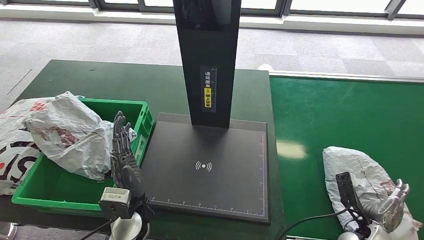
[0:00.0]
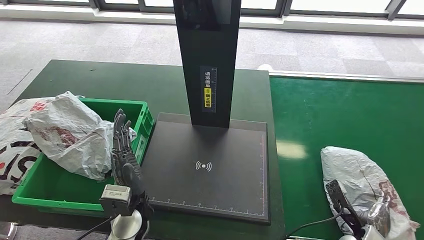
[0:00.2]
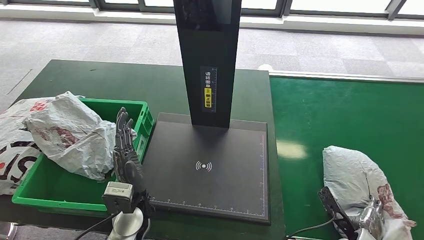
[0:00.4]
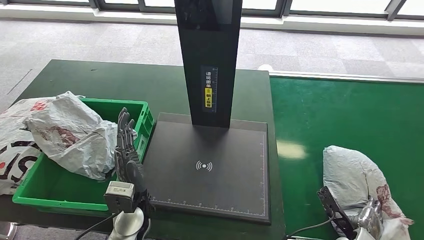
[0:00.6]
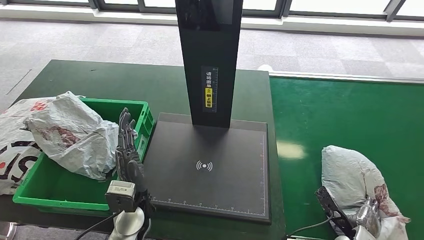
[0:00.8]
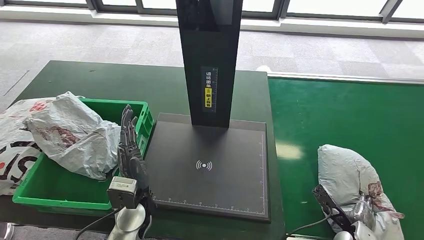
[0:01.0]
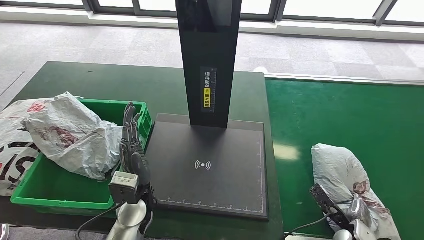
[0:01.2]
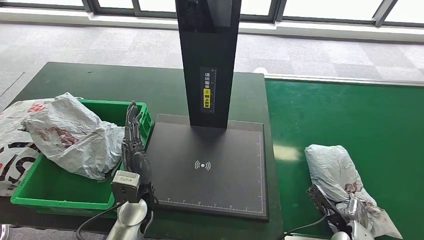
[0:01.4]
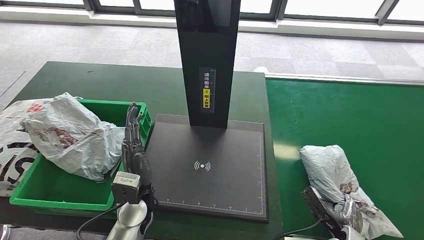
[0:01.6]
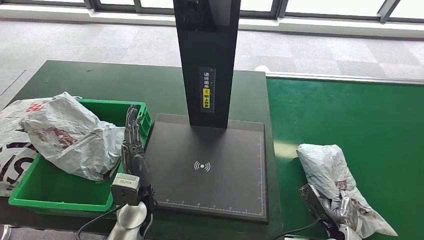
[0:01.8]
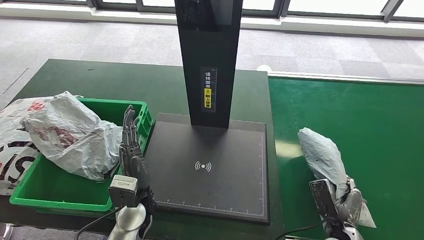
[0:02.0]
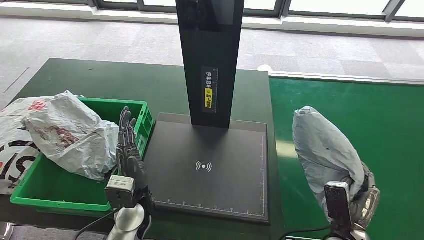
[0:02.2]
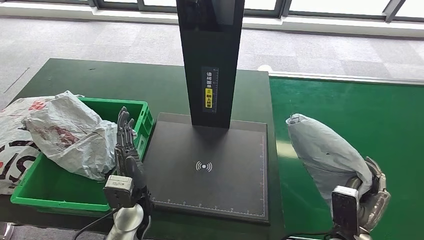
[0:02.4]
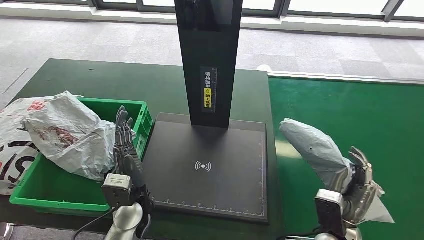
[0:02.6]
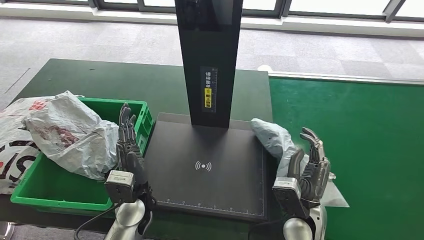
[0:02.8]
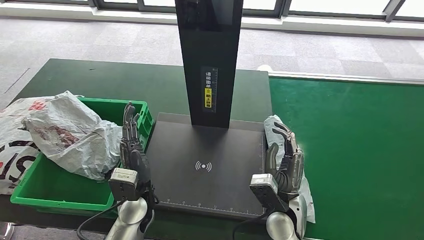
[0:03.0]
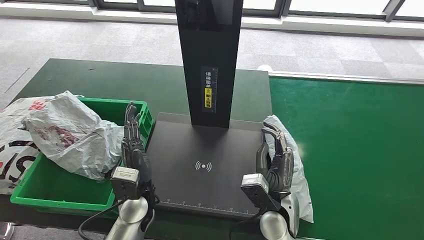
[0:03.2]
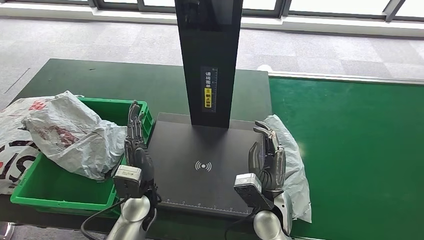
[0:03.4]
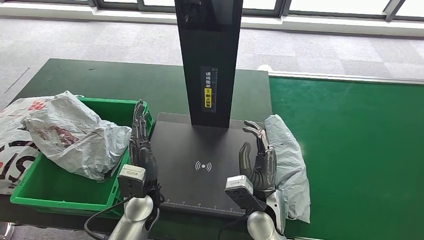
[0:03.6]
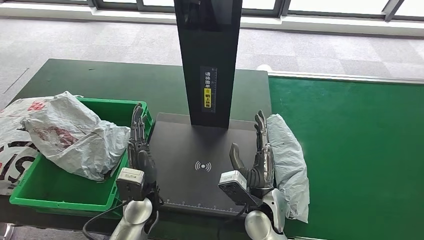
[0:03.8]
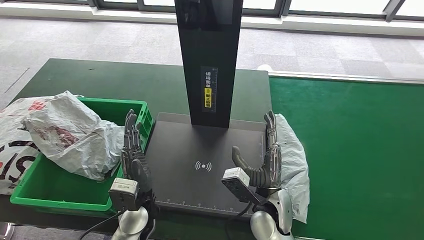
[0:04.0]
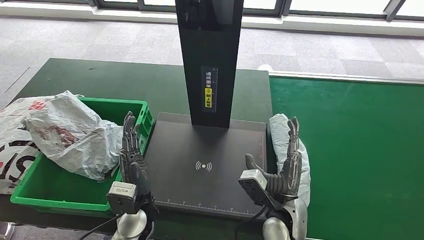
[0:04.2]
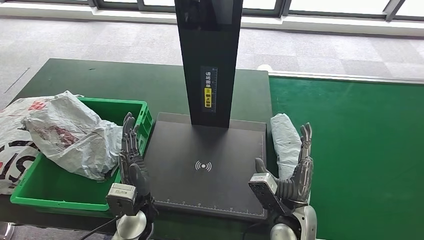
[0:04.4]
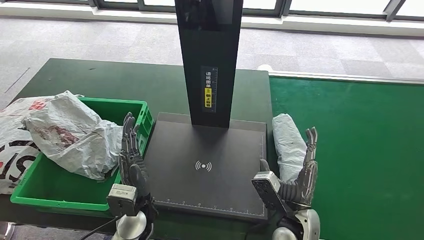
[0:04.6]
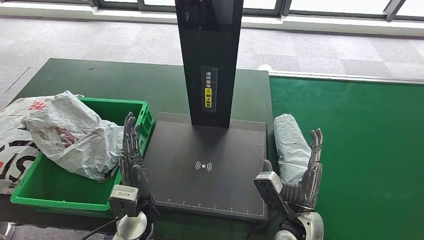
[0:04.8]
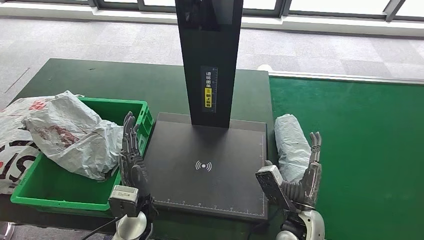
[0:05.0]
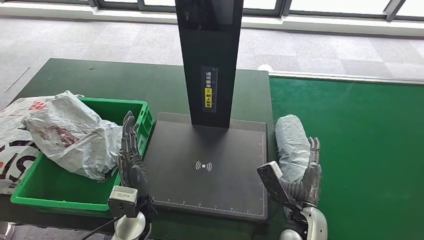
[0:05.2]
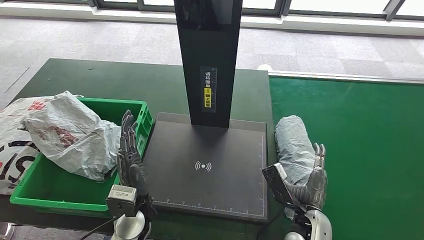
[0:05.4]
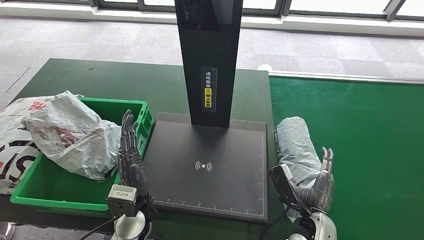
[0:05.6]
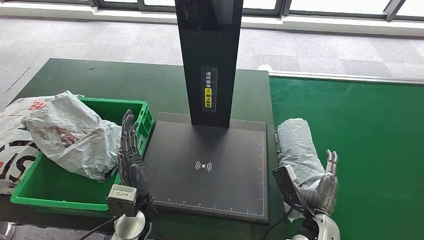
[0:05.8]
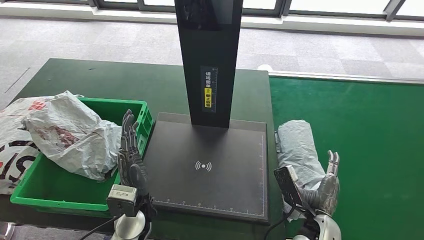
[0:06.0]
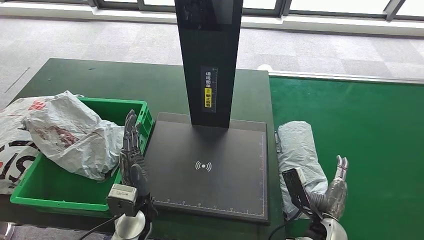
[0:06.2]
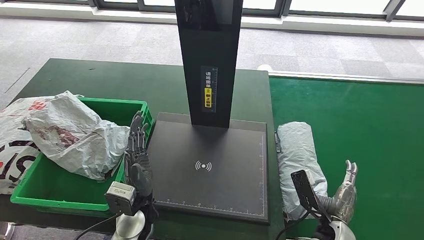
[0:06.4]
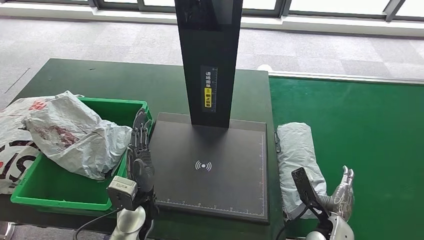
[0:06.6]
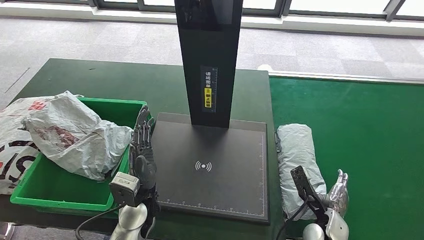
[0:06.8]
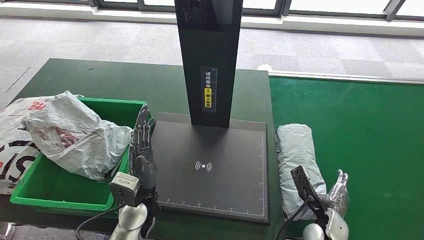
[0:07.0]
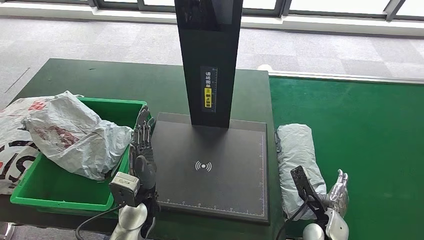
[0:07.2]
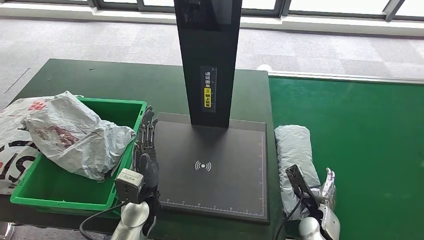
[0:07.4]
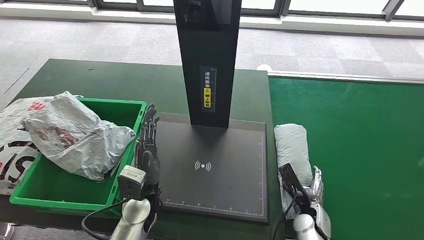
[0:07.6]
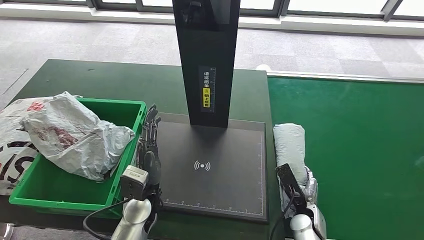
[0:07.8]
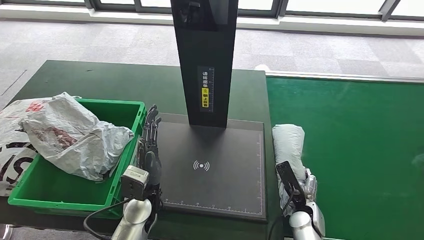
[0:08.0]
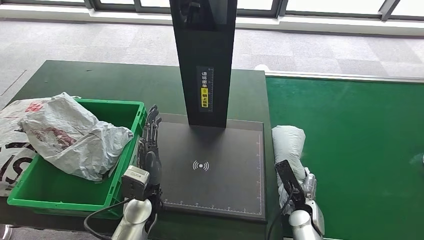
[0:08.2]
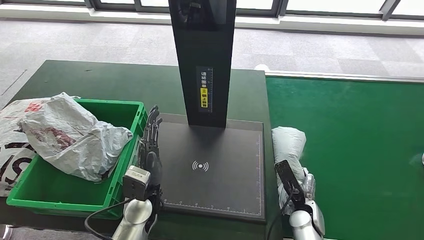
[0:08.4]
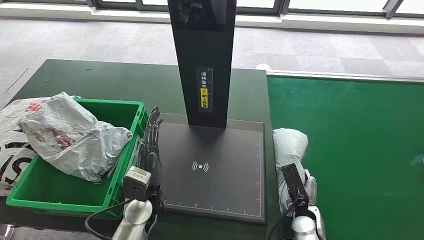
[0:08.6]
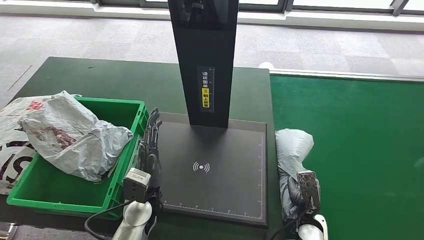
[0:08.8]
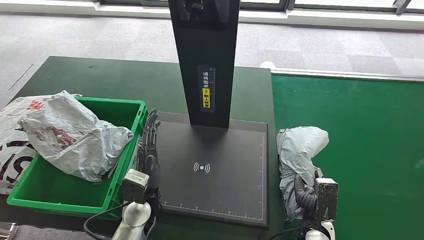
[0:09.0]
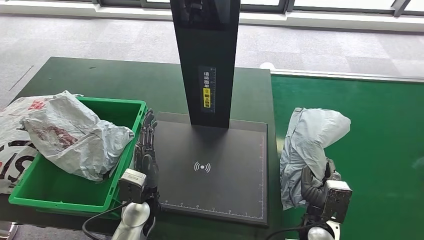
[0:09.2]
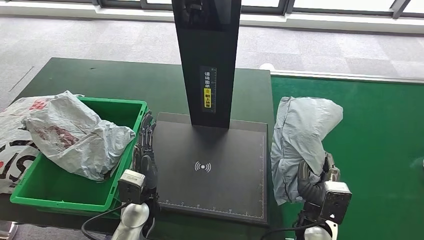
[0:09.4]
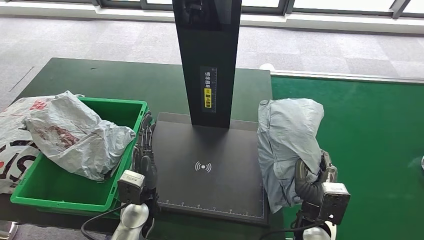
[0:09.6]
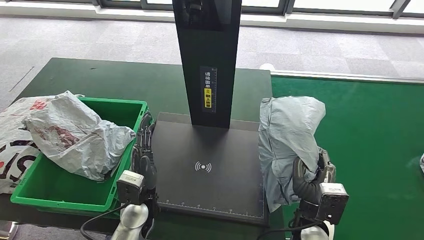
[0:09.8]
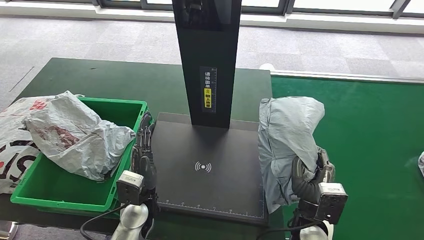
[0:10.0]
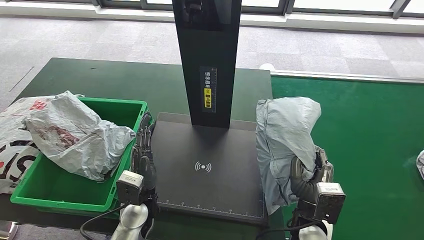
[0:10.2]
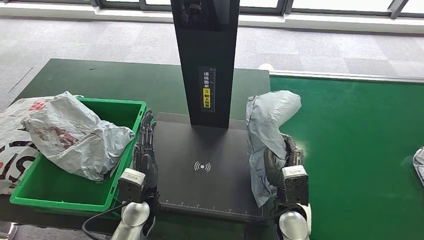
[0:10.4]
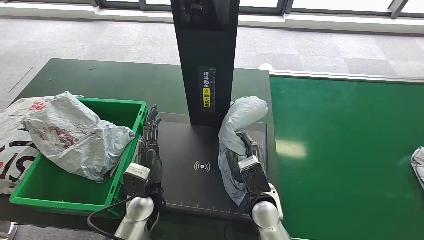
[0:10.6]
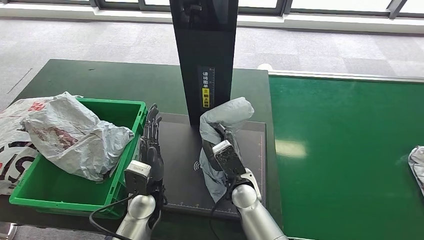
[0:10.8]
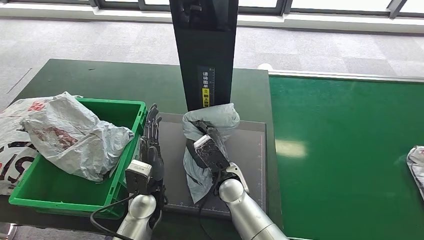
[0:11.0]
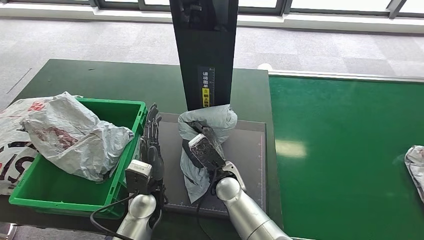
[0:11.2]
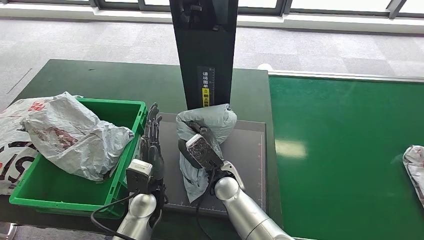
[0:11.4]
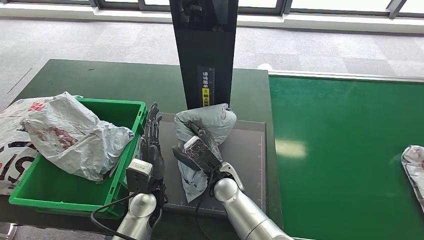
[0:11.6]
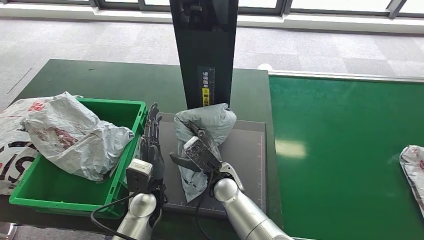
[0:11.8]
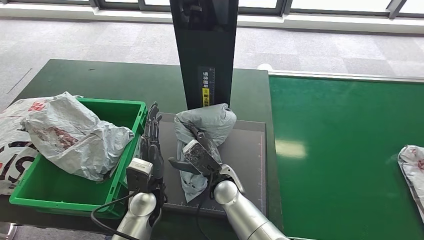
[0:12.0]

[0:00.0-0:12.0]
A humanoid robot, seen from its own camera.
Step, 0:09.2 to 0:10.2: Pick up the parcel from the conveyor belt.
0:03.0 to 0:04.4: The hands make only small movements.
0:04.4 to 0:06.0: The right hand moves to the right, roughly 5 cm.
0:06.0 to 0:07.6: The right hand shifts some 10 cm downward and to the right.
0:10.4 to 0:12.0: The right hand is displaced to the left and forward by some 15 cm.

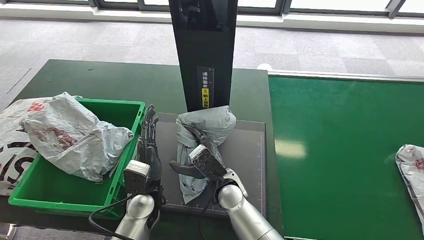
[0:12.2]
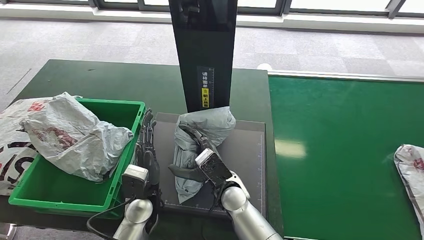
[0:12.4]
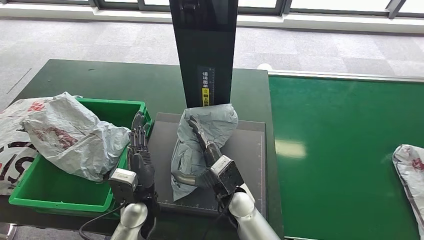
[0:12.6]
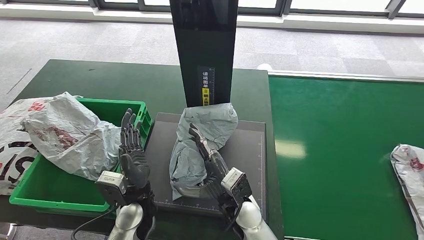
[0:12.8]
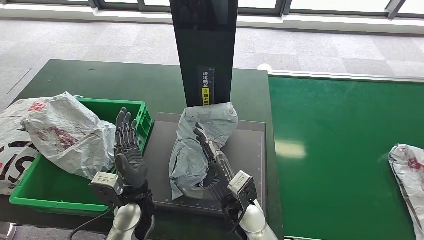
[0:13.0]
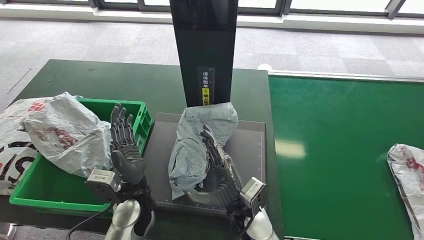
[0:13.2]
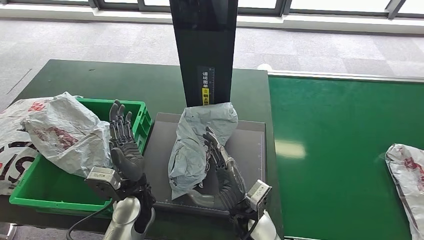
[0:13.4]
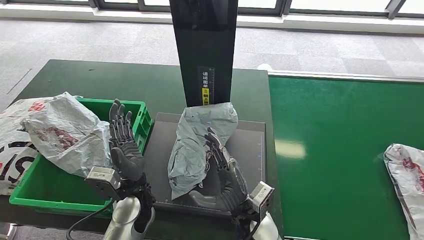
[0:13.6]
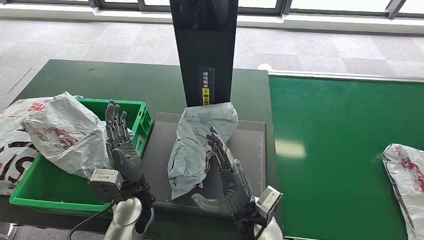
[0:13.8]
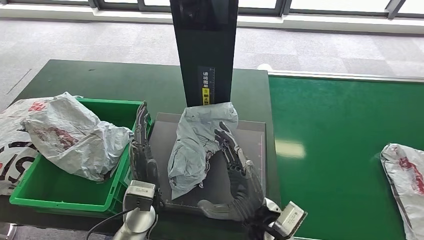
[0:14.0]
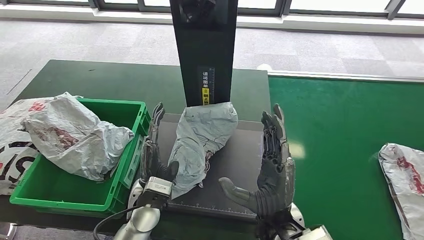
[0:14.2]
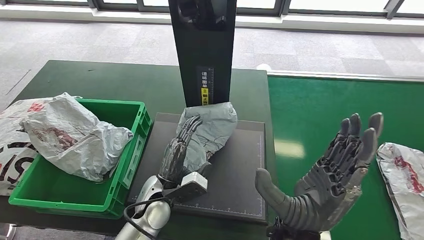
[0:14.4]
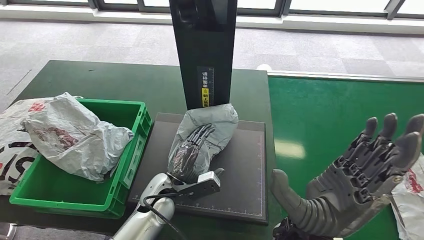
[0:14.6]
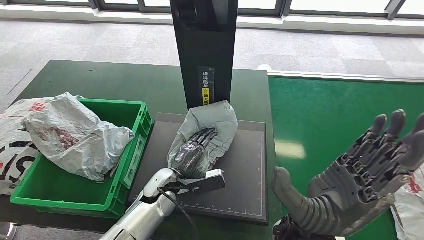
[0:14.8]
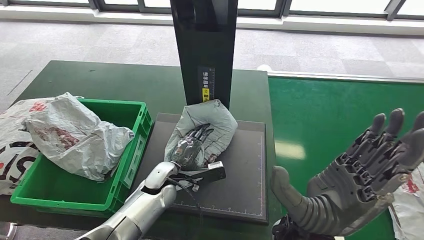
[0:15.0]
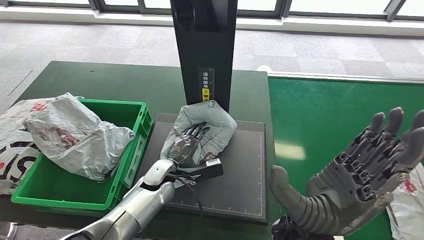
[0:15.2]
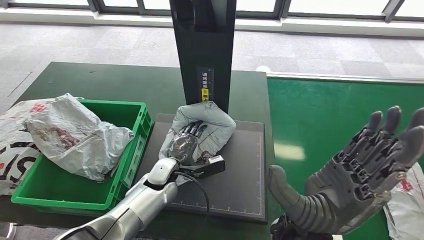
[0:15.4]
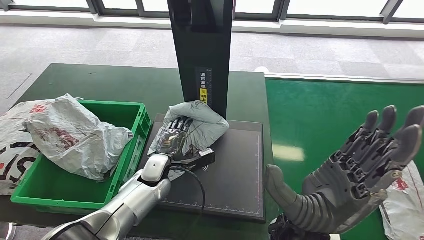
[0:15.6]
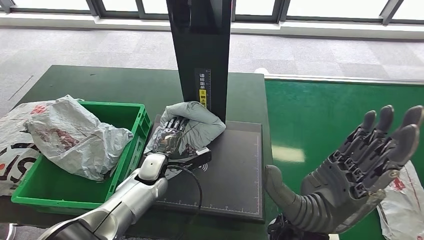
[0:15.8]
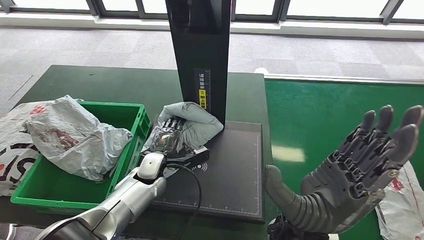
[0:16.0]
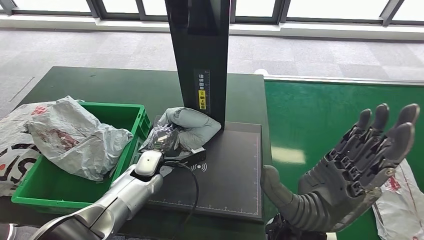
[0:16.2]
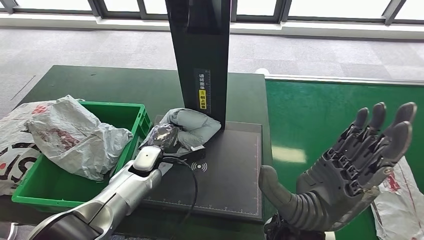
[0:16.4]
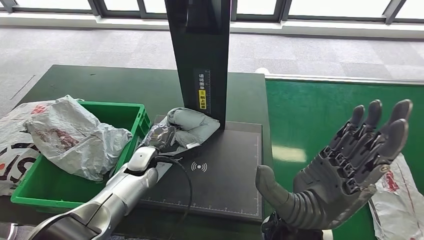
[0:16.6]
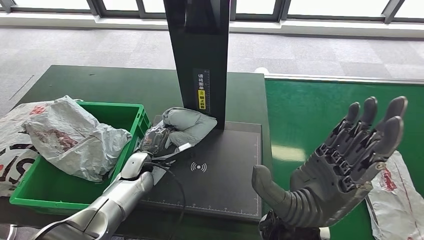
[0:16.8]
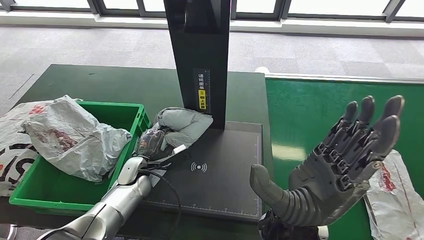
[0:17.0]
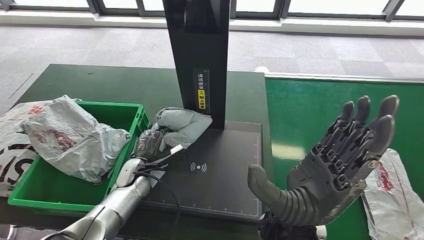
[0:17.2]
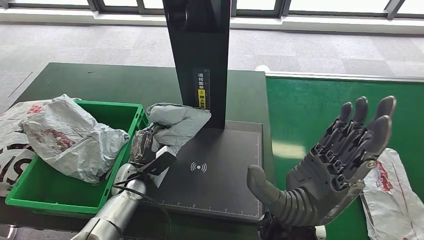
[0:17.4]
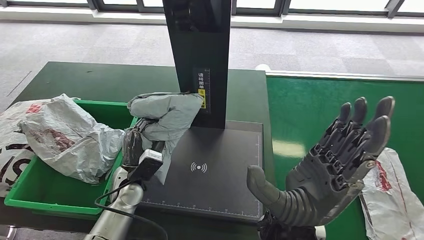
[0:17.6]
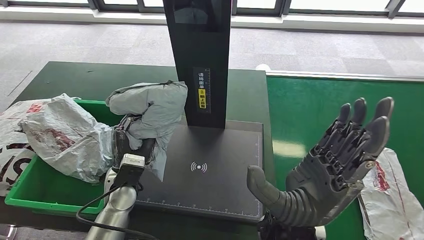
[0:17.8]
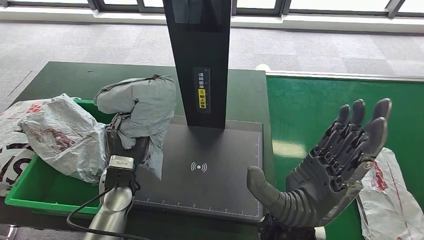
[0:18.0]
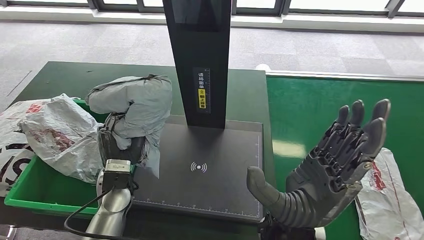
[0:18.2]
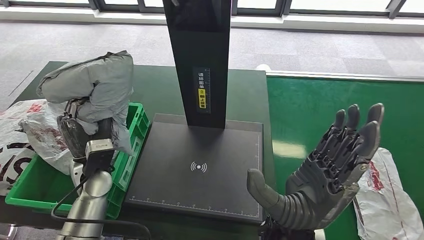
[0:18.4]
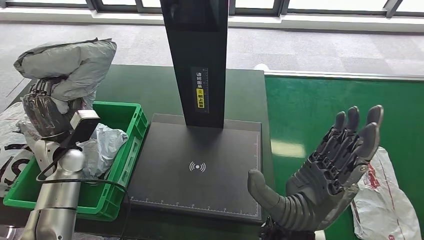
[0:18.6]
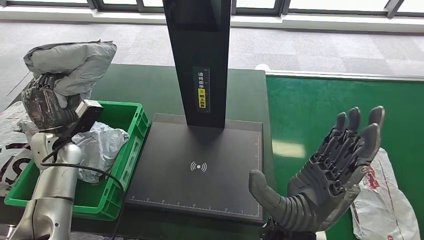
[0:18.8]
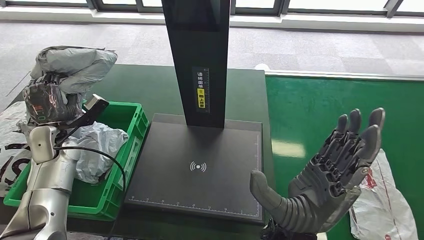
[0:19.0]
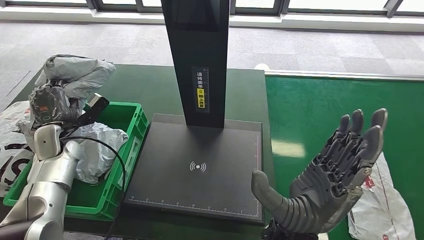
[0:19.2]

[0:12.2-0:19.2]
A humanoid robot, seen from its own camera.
Step, 0:13.4 to 0:16.8: Pick up the parcel from the inbound machine.
0:12.2 to 0:13.6: The right hand shifts about 10 cm backward and to the right.
